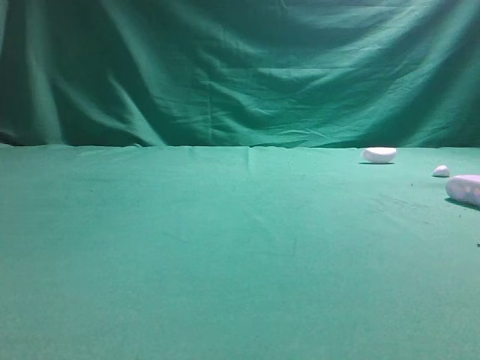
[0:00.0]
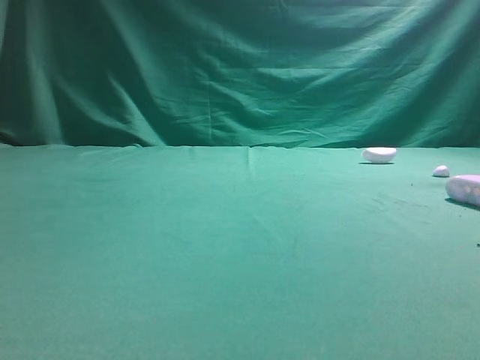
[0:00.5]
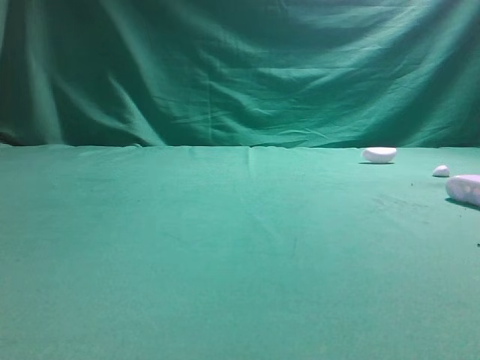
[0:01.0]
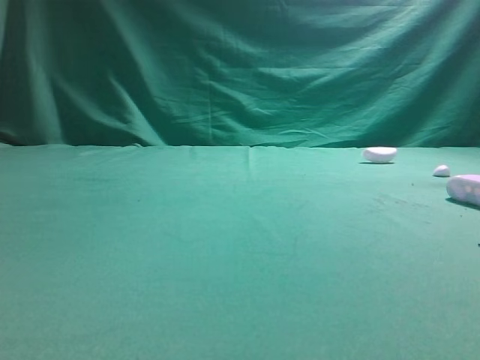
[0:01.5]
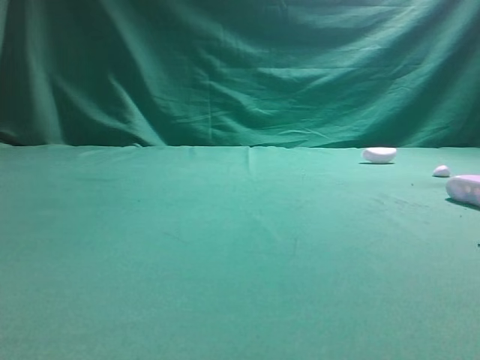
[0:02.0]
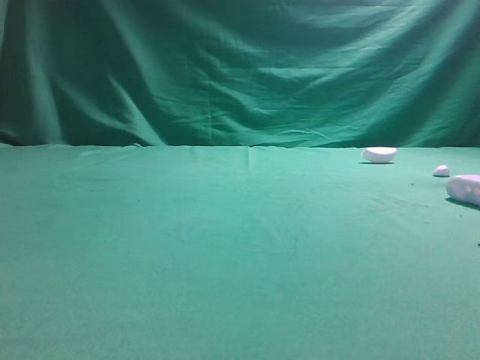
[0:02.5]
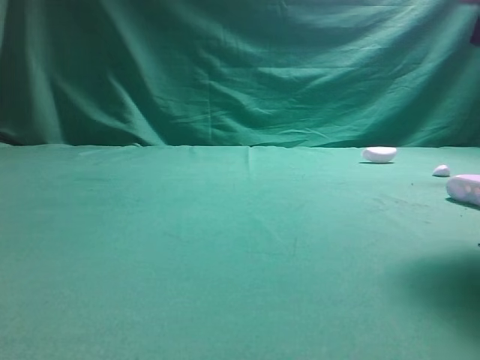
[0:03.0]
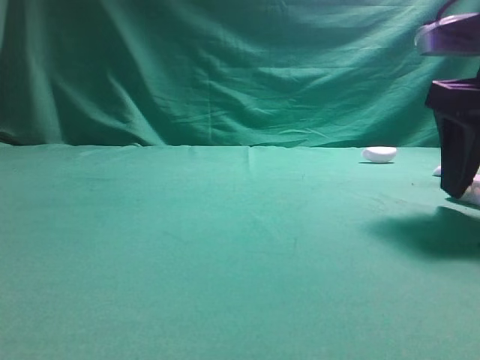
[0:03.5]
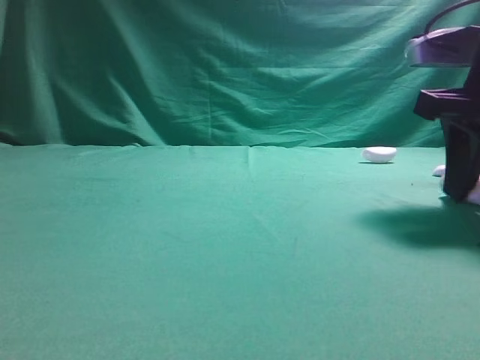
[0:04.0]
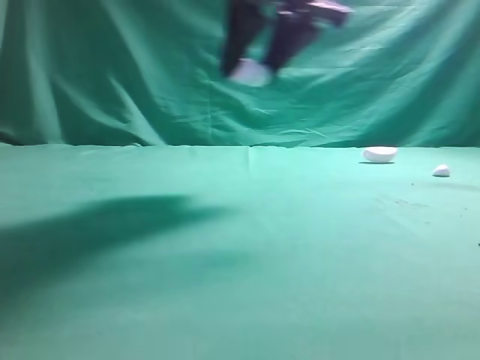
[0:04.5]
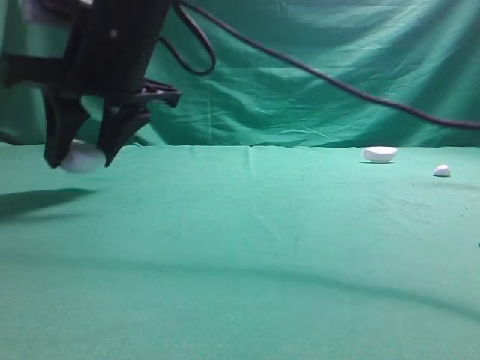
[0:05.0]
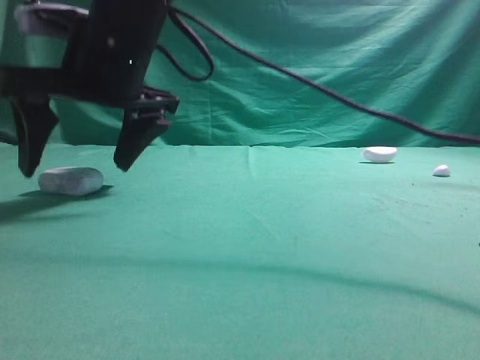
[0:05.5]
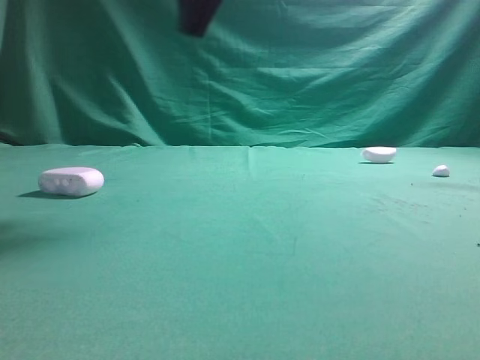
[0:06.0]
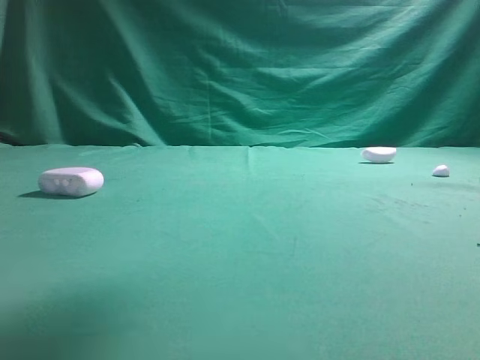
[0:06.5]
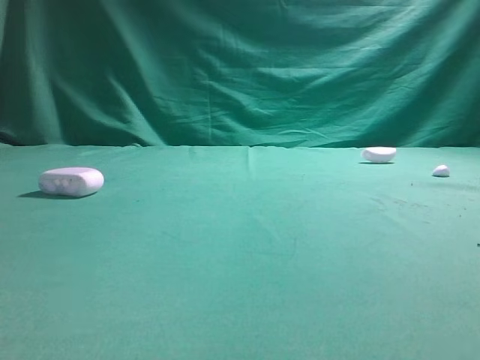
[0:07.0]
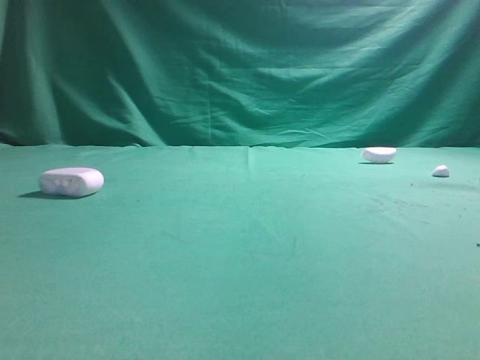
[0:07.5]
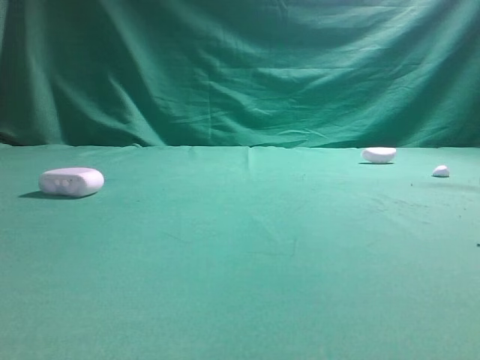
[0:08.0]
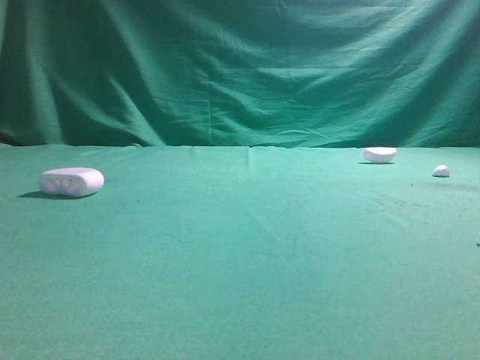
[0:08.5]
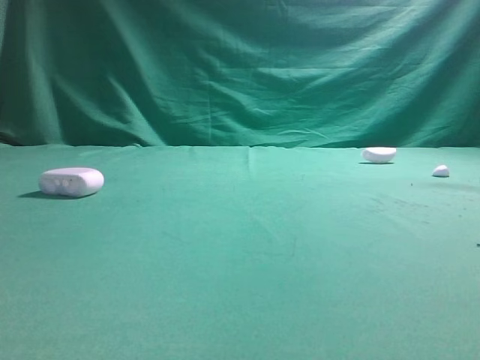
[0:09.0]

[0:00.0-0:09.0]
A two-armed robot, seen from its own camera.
Step, 0:00.0 to 0:04.0: Grasp the Bluetooth earphone case.
Step, 0:04.5 to 0:05.5: Place bluetooth earphone case on the left side of the table.

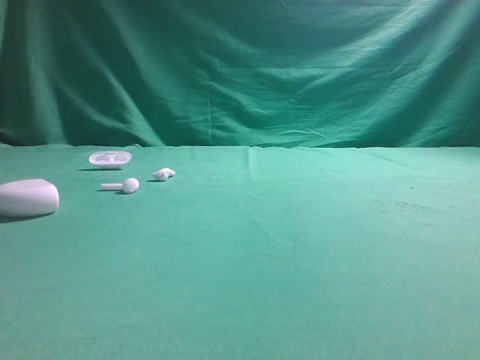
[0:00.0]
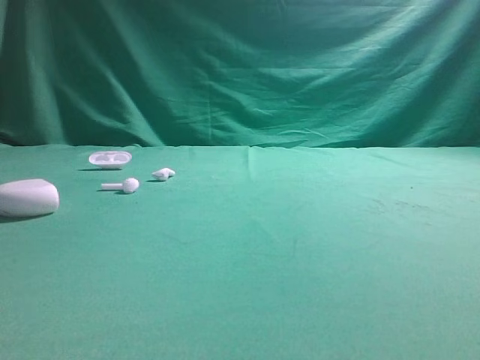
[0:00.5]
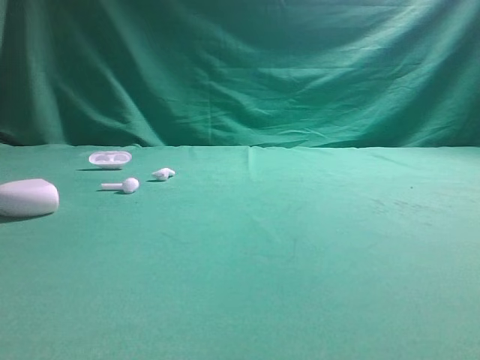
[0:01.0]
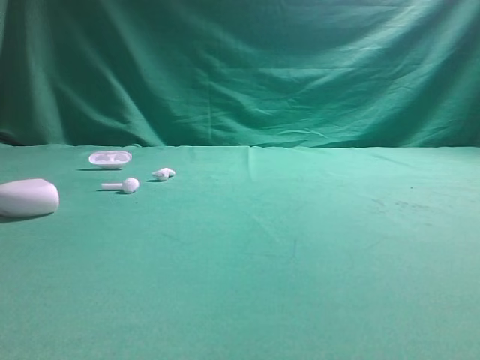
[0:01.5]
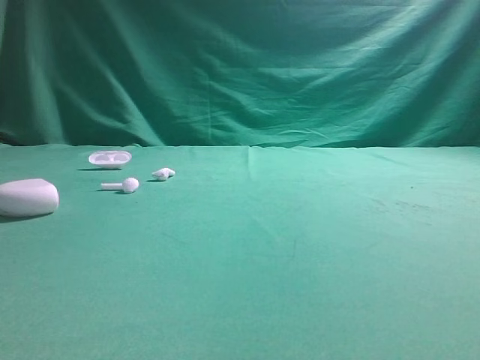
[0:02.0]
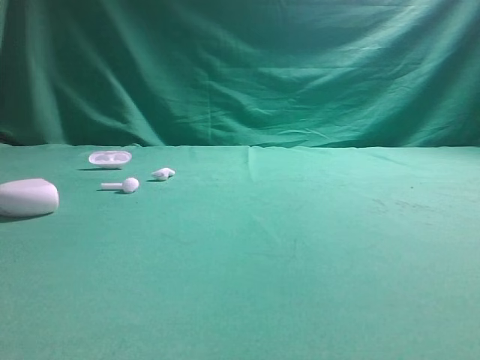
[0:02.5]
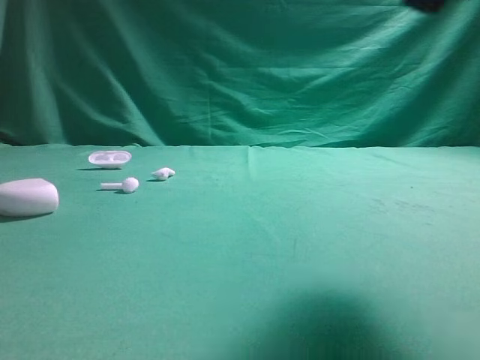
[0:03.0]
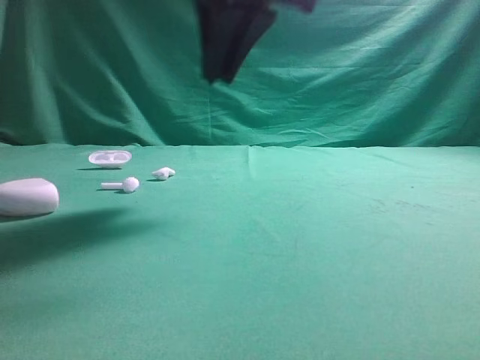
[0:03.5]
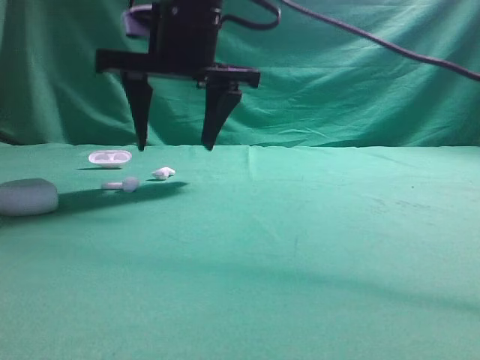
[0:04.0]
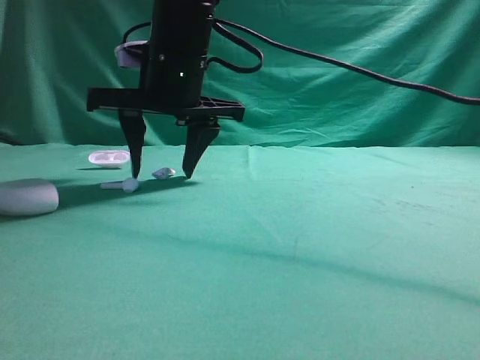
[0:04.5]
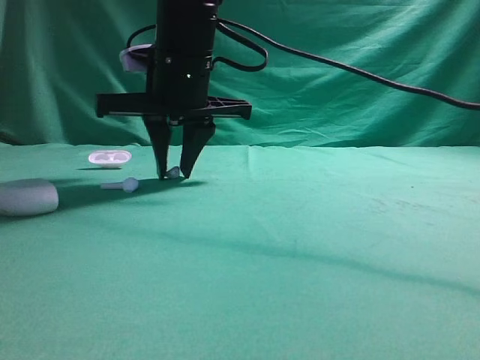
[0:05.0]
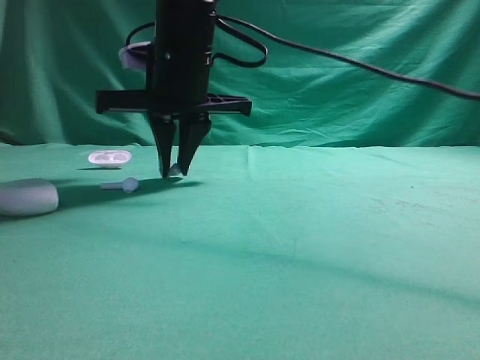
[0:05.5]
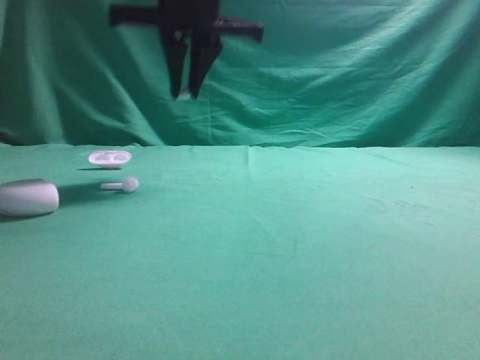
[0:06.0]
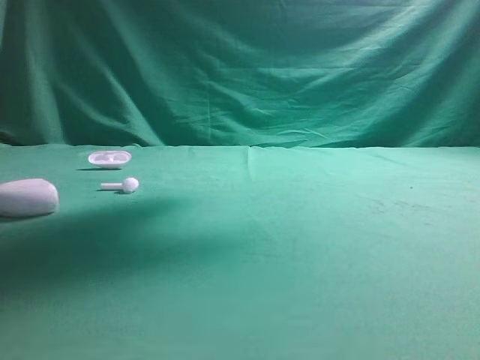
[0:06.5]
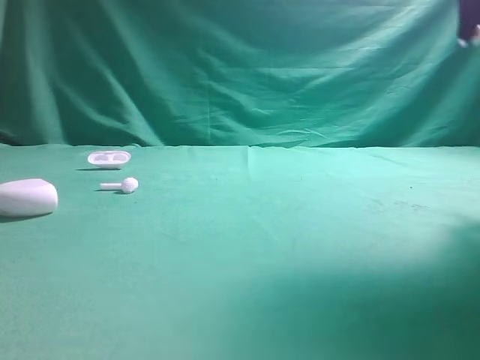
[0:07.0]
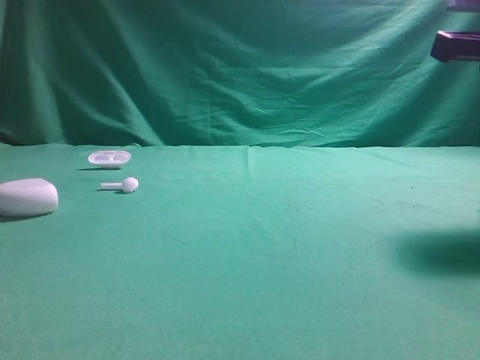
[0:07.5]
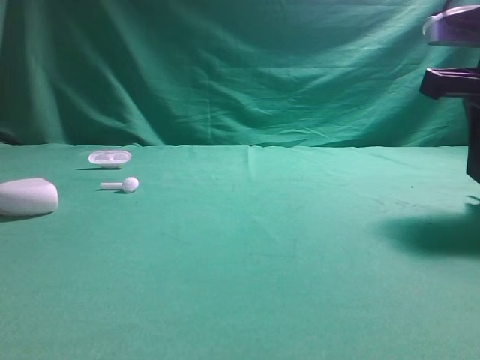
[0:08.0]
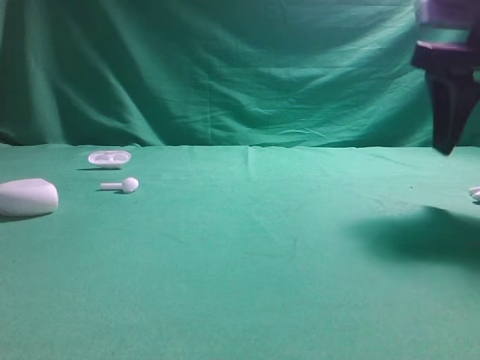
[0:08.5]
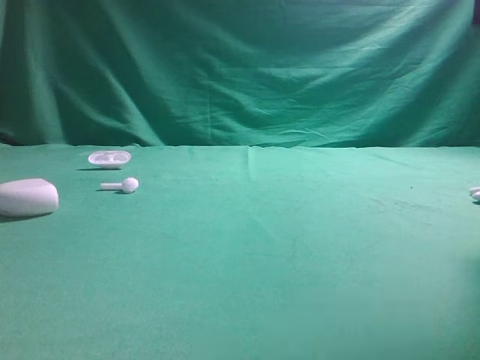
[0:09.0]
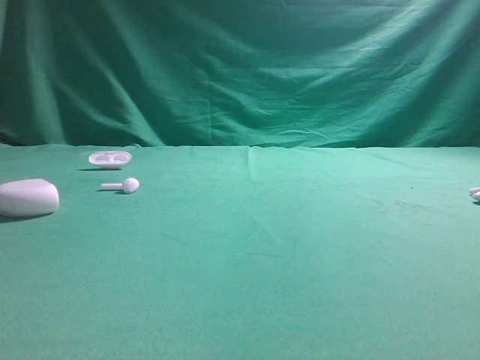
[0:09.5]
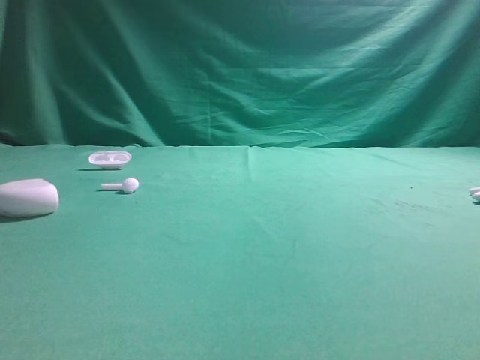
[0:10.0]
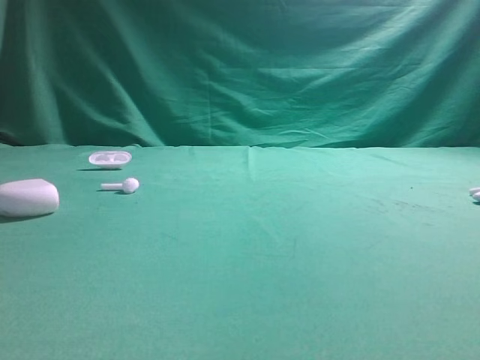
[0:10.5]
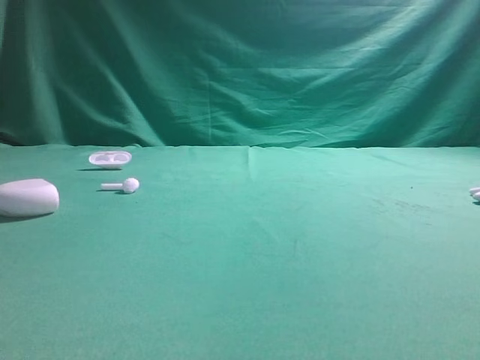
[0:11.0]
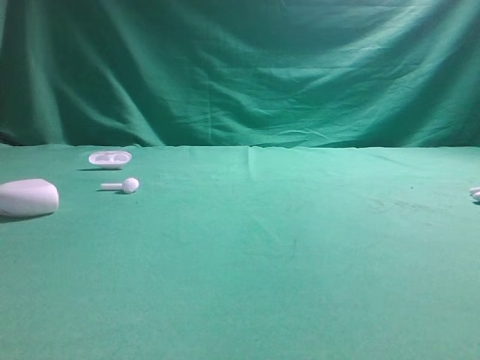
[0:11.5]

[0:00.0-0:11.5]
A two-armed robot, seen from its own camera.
Step, 0:00.0 to 0:05.5: Grasp the Bluetooth earbud.
Step, 0:06.0 to 0:08.5: Place bluetooth earbud on the right side of the table.
